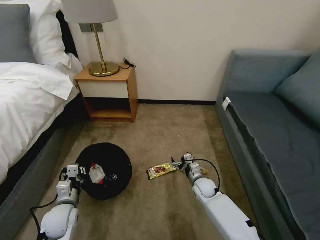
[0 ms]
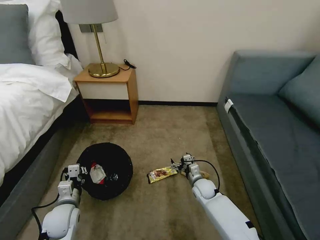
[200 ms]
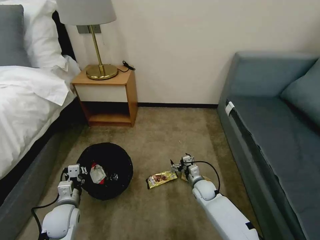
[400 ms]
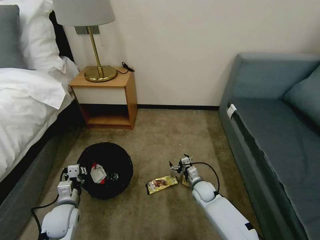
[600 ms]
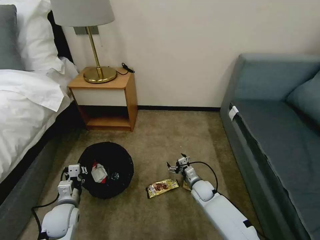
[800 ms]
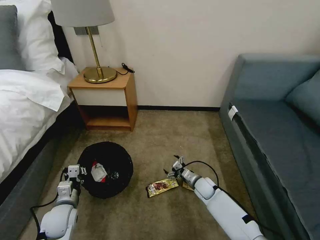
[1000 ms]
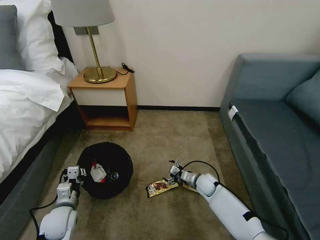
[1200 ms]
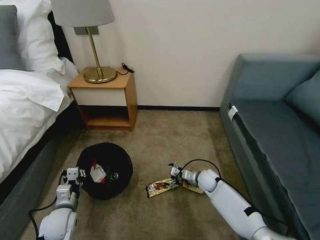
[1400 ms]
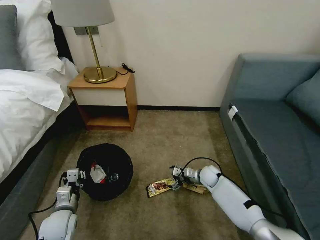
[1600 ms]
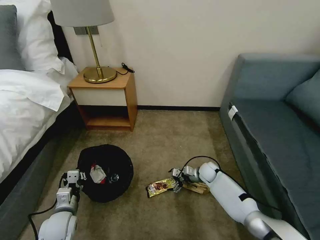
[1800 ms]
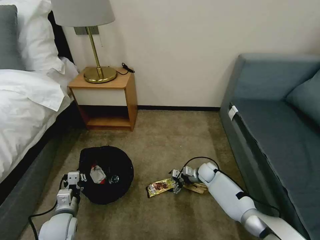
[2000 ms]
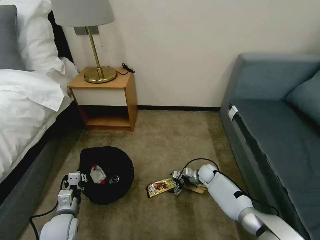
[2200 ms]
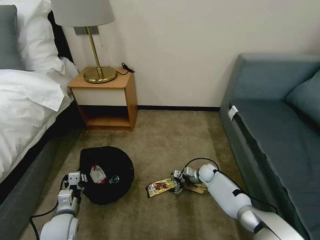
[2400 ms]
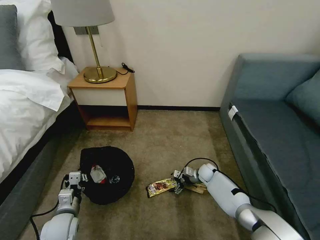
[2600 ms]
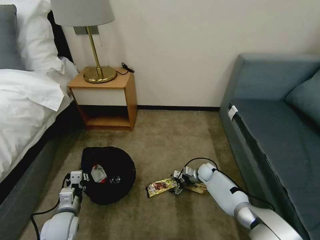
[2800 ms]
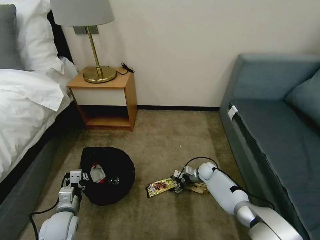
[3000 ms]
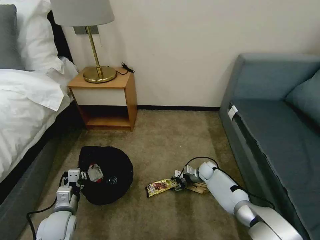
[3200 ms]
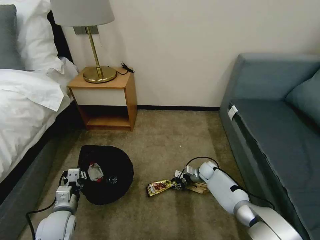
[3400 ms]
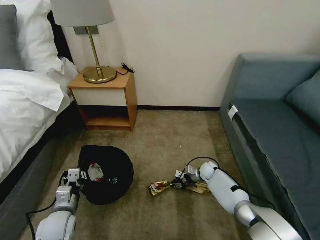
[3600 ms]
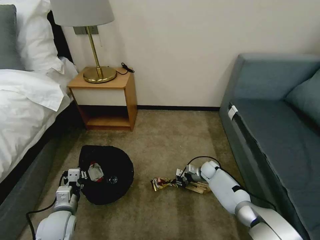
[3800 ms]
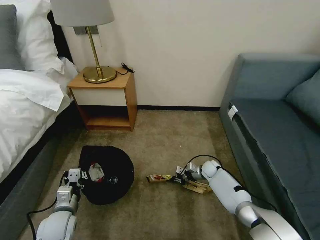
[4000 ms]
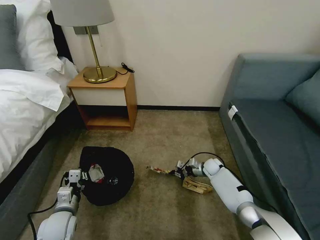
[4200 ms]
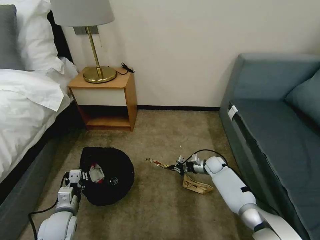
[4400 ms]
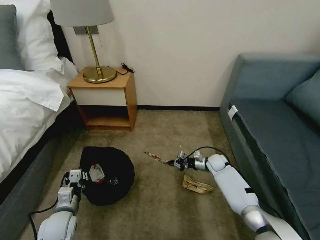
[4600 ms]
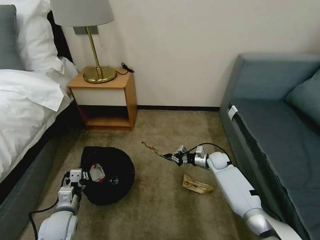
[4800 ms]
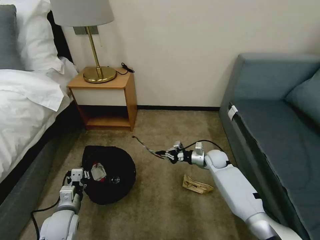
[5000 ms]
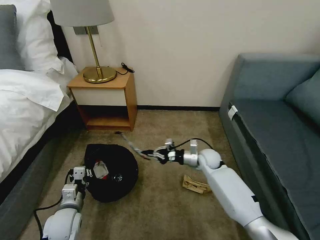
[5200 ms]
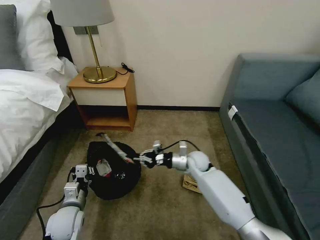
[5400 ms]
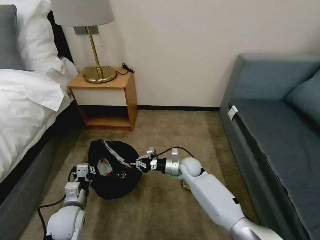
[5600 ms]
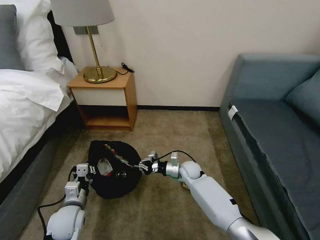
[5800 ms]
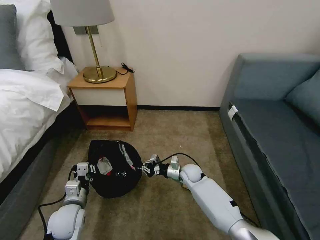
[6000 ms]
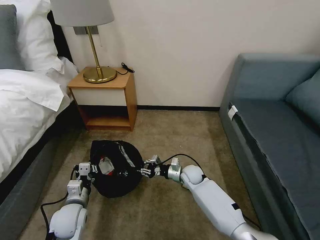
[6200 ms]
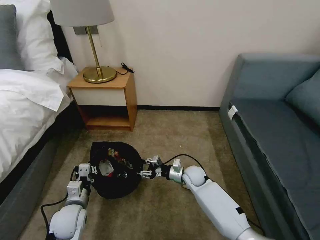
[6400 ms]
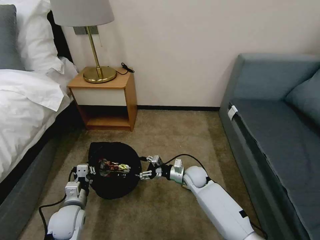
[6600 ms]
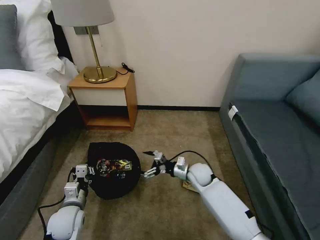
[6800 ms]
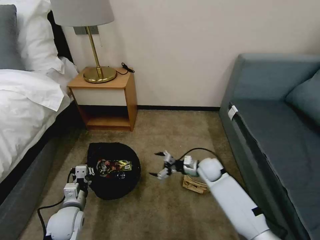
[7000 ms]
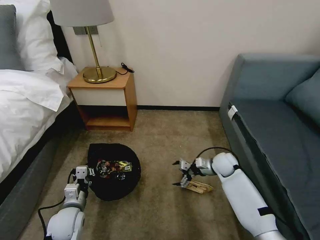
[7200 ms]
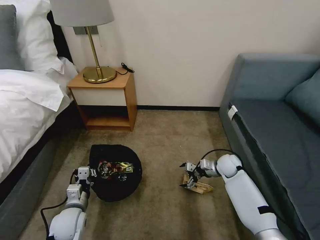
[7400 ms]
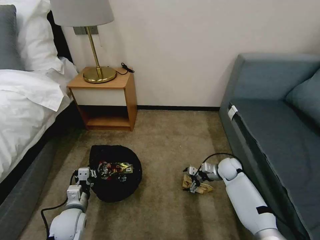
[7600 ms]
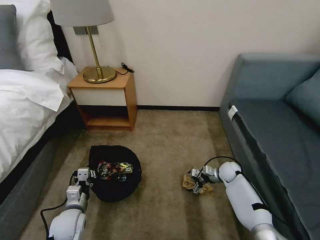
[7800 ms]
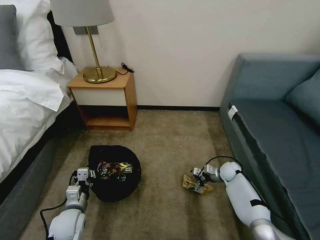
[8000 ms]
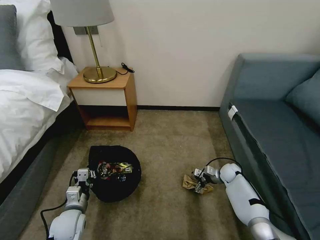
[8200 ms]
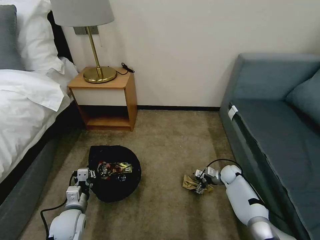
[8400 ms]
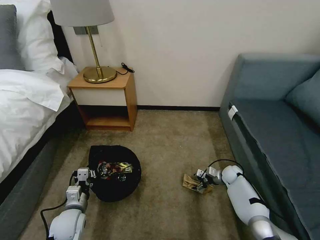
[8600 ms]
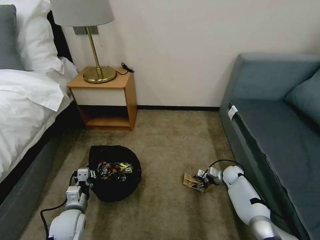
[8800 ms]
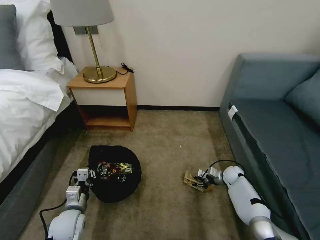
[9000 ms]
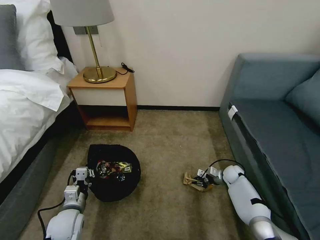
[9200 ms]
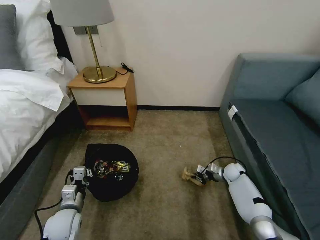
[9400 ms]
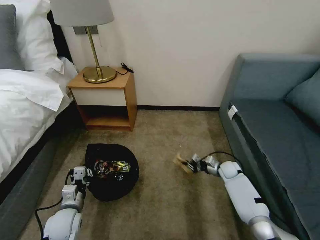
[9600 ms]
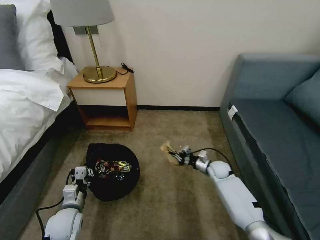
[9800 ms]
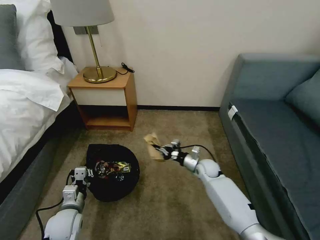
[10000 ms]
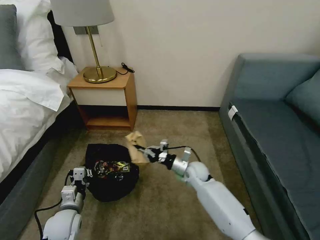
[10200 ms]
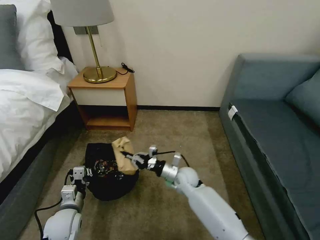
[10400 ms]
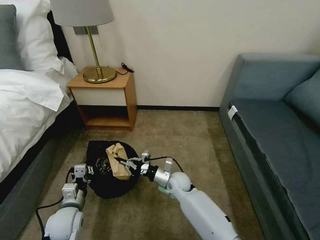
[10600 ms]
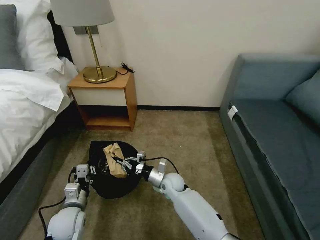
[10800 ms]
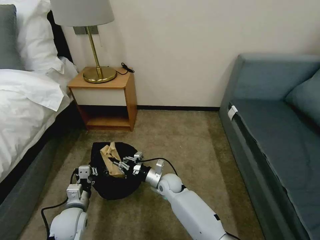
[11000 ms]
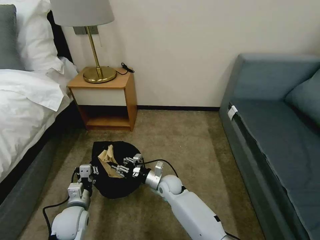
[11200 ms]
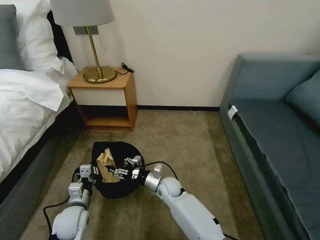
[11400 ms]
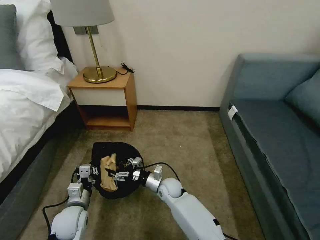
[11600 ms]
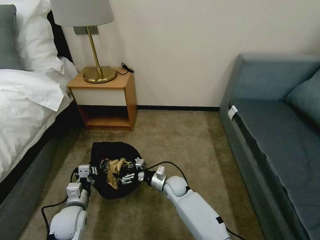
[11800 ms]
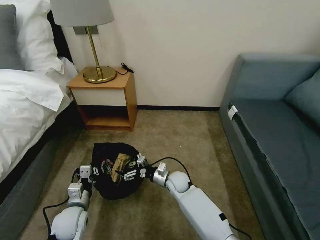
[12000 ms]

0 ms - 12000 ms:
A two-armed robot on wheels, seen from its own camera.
Task of the whole recording: Pick up the trash bin, then pick up the garbage on the floor and place it into the trash bin.
0 ms - 1600 ms: The right gripper goes some 5 cm forward.
1600 ms - 3000 ms: The right gripper shifts by approximately 5 cm.
3000 ms - 4400 ms: The right gripper ends up some 5 cm from where it was, and closes.
4400 ms - 6000 ms: The right gripper moves to the left and backward, roughly 15 cm.
6000 ms - 7600 ms: The right gripper travels to the right by approximately 15 cm, and opens its fingers.
7600 ms - 9000 ms: The right gripper is displaced downward and to the right by approximately 10 cm, and closes.
9000 ms - 10400 ms: The right gripper heads to the left, covering approximately 25 cm, and closes.
10400 ms - 12000 ms: The right gripper opens.

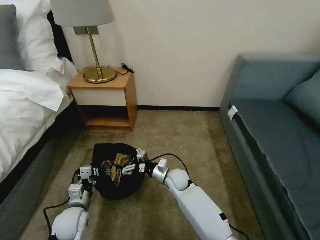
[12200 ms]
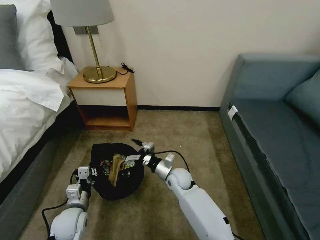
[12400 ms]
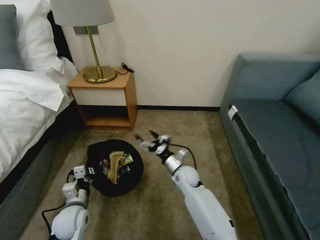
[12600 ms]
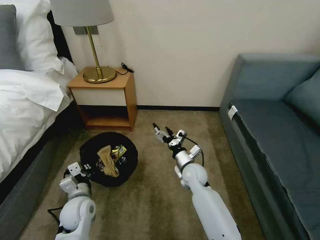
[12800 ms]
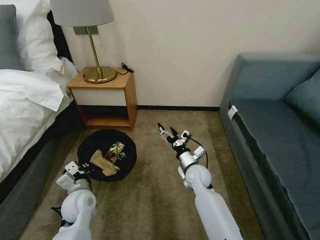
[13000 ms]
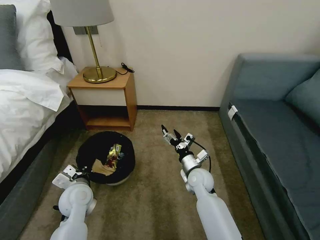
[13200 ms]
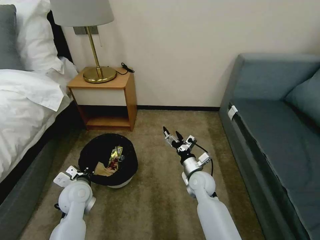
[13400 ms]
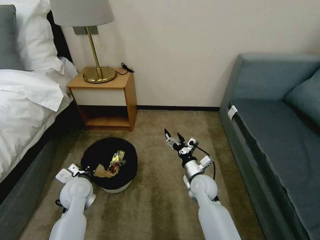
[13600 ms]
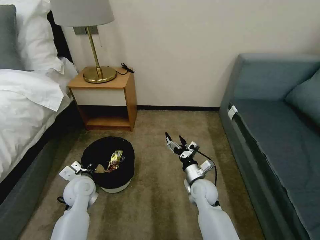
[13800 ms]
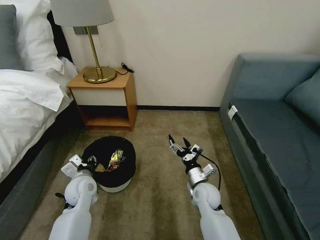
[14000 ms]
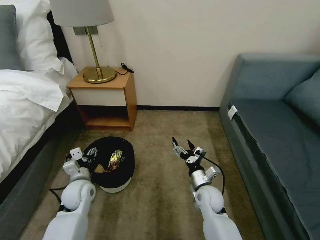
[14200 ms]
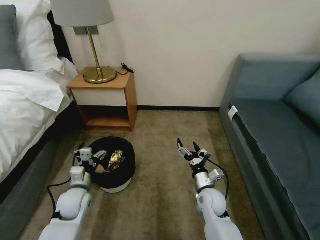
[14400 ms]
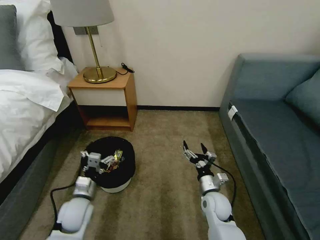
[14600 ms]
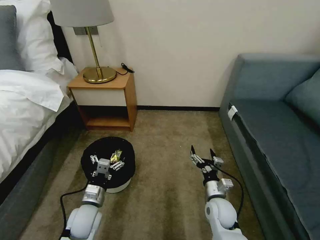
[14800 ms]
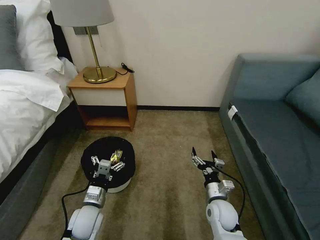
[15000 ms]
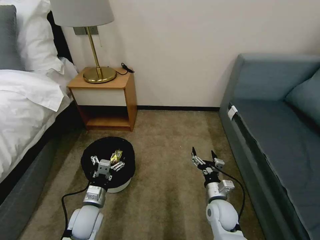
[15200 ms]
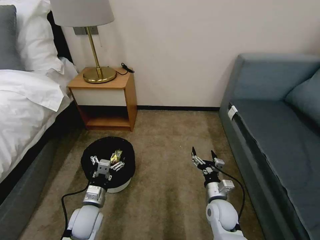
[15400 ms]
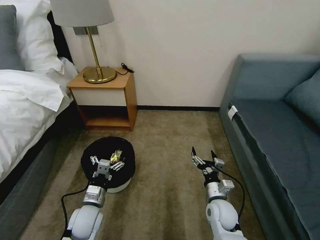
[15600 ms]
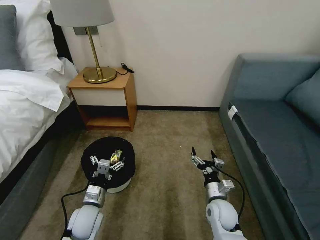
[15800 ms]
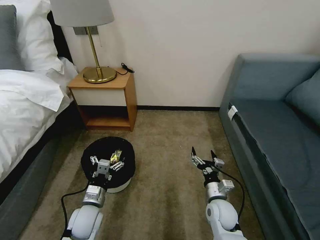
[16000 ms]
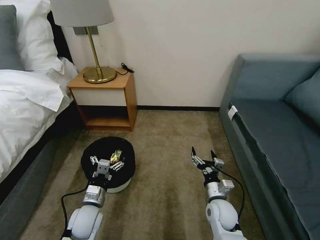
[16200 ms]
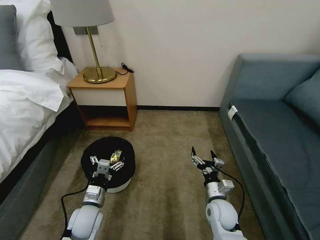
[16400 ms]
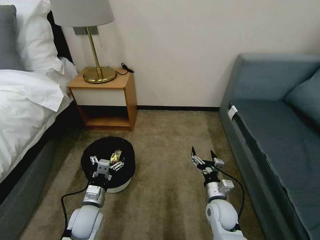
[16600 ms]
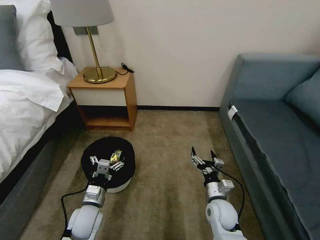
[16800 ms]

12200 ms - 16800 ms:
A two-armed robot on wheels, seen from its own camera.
Task of the whole recording: Pick up the trash bin, then pick up the garbage on the floor and place it into the trash bin.
12200 ms - 13800 ms: The left gripper travels forward and upward by some 10 cm. Meanwhile the right gripper goes approximately 10 cm to the right and backward.
13800 ms - 15200 ms: The left gripper is displaced backward and downward by roughly 10 cm, and opens. The right gripper moves backward and to the right, approximately 10 cm.
15200 ms - 16800 ms: Both grippers stay about where they are.

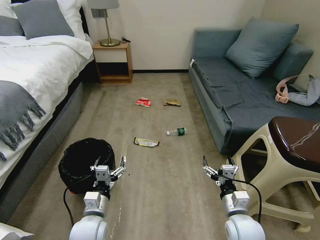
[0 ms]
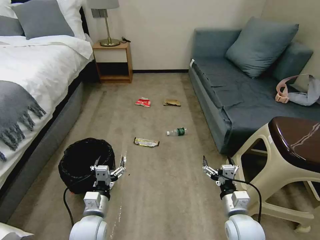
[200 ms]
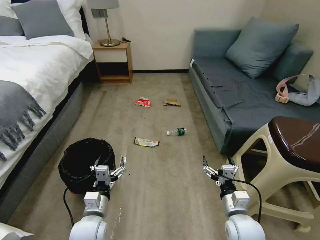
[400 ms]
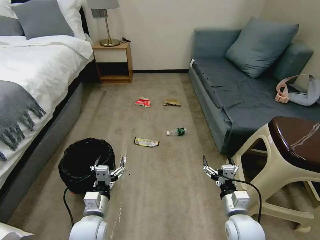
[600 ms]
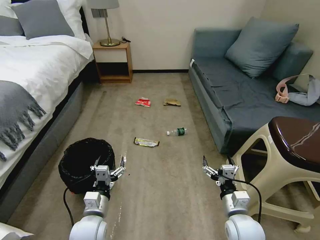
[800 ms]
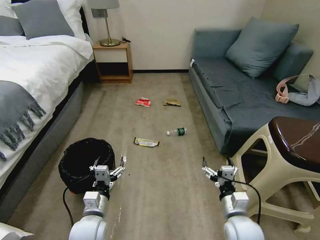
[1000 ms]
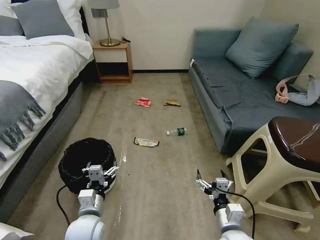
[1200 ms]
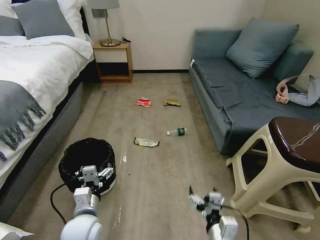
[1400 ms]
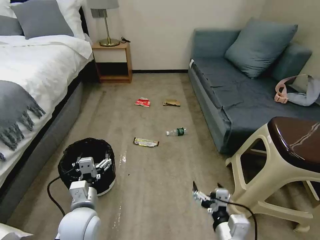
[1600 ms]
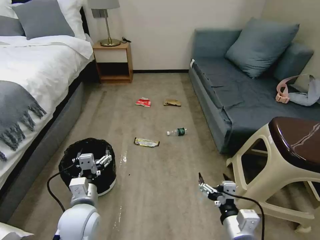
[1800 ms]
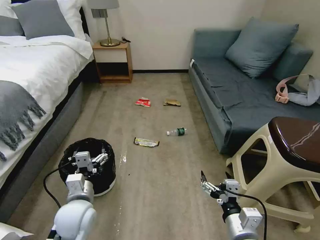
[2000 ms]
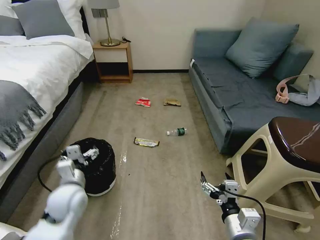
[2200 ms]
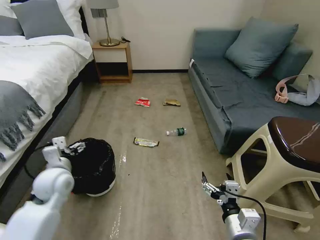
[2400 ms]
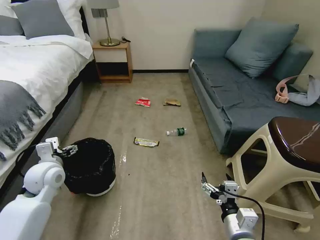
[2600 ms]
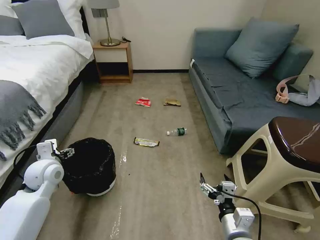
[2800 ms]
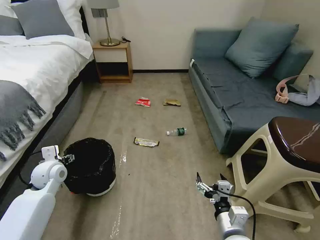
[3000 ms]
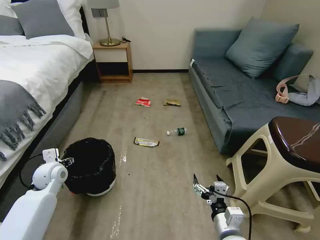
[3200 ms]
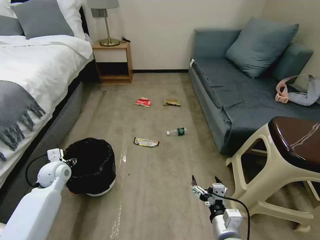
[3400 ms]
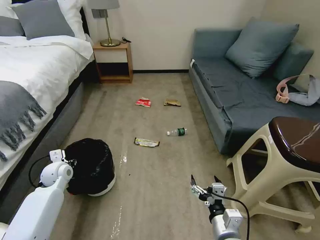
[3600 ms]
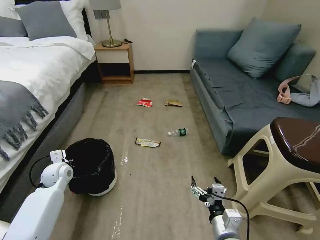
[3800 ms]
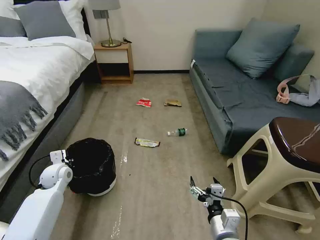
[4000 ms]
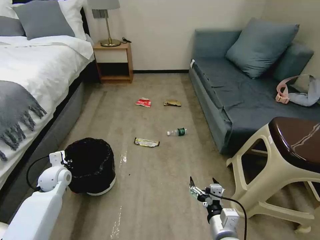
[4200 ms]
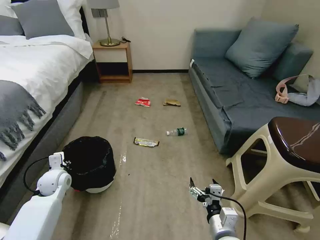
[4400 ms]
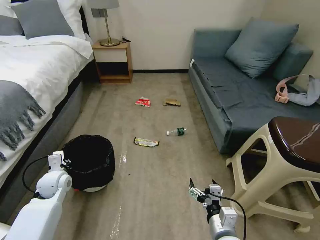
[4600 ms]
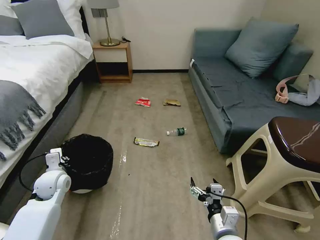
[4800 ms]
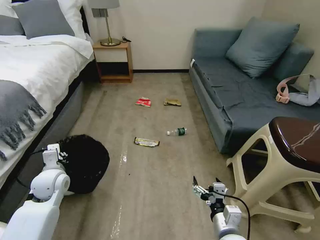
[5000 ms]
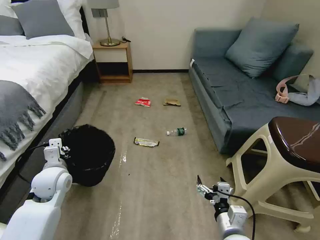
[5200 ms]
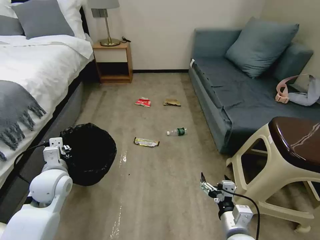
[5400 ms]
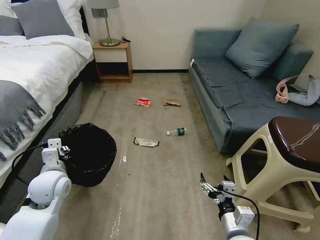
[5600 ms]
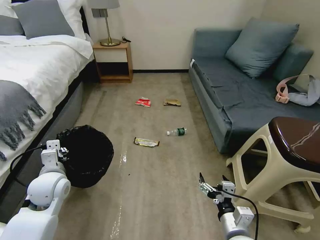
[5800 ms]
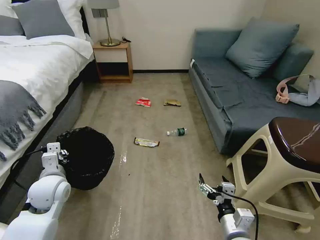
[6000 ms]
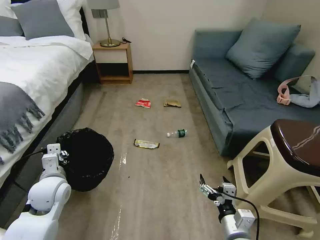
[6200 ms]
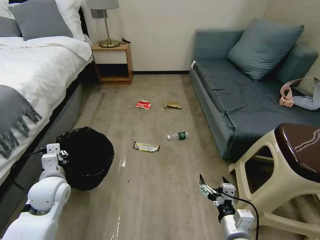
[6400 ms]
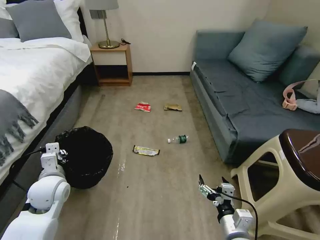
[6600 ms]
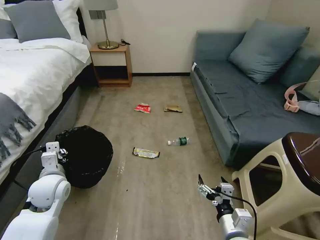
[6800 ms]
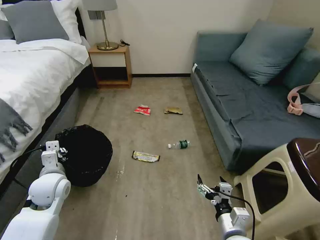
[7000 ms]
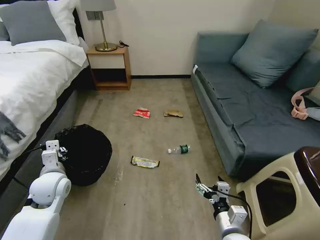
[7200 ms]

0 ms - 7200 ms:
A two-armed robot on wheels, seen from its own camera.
Task of the whole recording: Pick up the trash bin, then pick up the garbage on the floor and place it into the trash bin.
1400 ms - 2800 ms: The left gripper moves to the left, forward and upward, roughly 20 cm; the right gripper changes place by approximately 5 cm.
2800 ms - 4400 ms: The left gripper goes roughly 10 cm downward, and closes.
4400 ms - 5800 ms: The left gripper is displaced upward, backward and to the right by roughly 10 cm.
